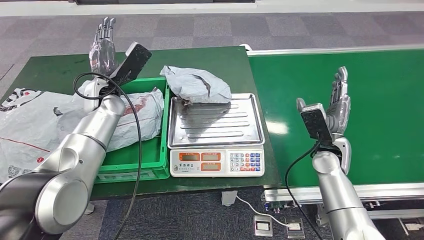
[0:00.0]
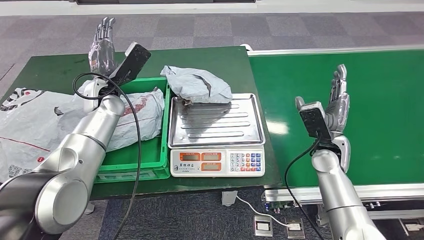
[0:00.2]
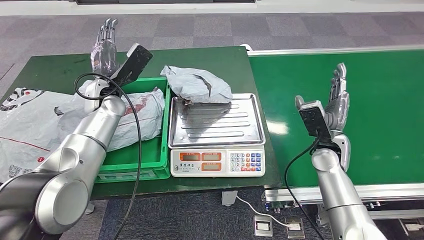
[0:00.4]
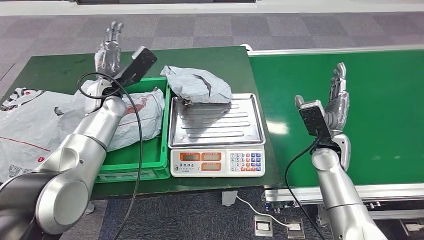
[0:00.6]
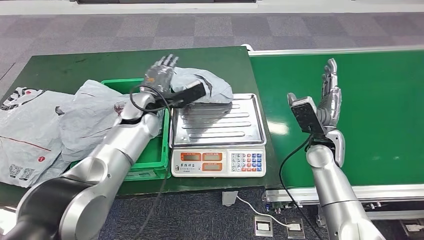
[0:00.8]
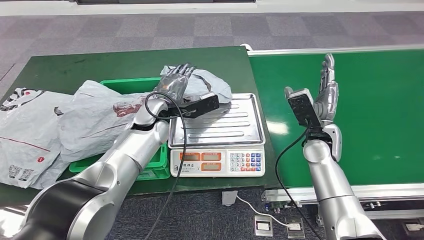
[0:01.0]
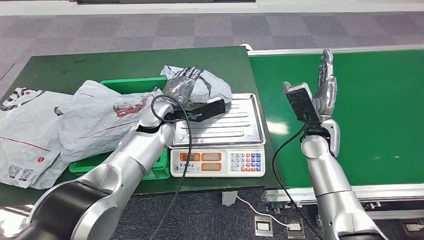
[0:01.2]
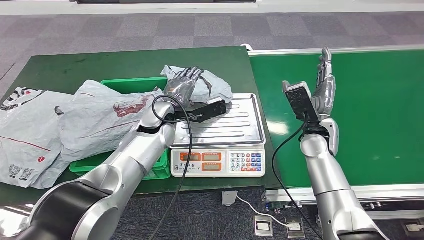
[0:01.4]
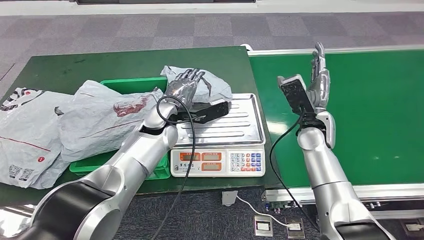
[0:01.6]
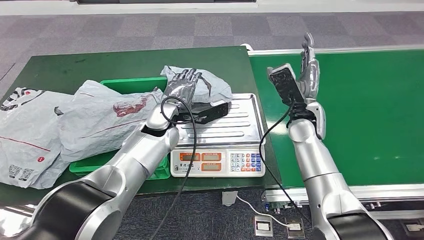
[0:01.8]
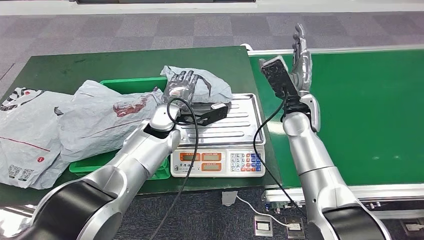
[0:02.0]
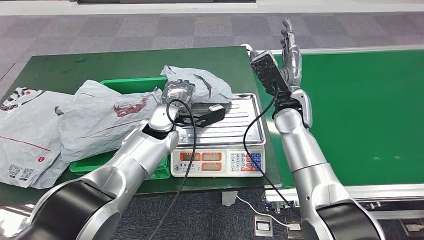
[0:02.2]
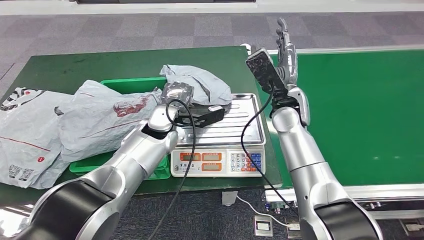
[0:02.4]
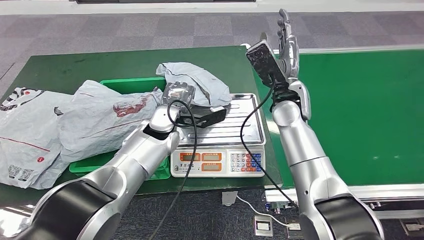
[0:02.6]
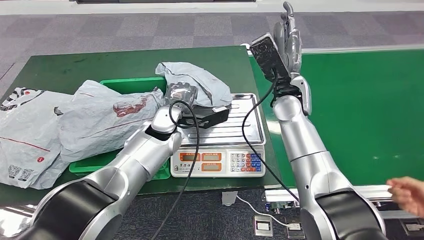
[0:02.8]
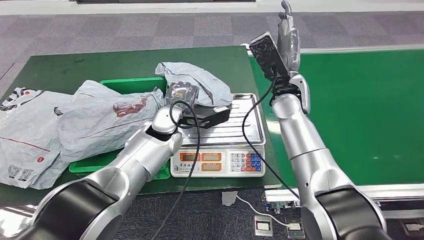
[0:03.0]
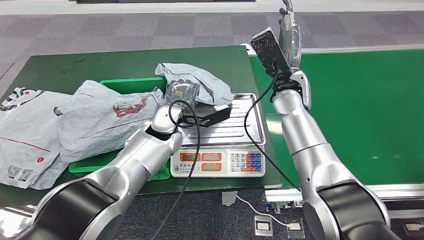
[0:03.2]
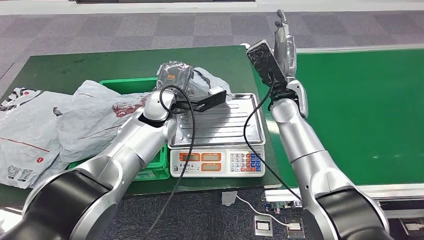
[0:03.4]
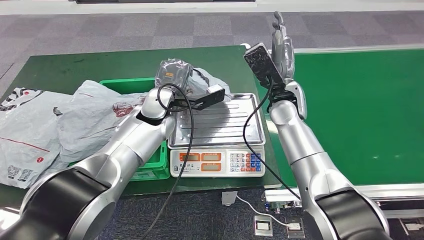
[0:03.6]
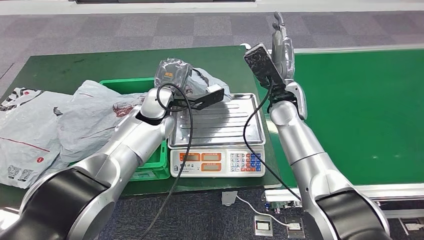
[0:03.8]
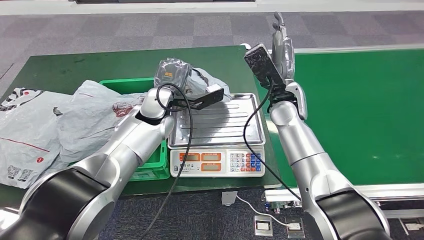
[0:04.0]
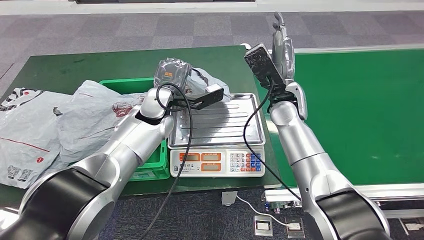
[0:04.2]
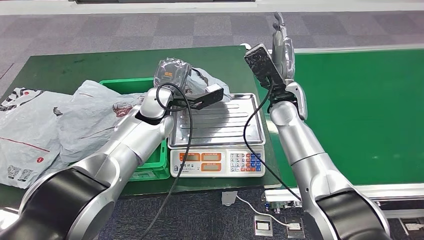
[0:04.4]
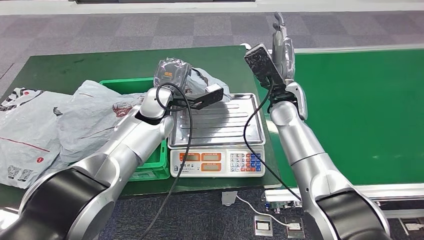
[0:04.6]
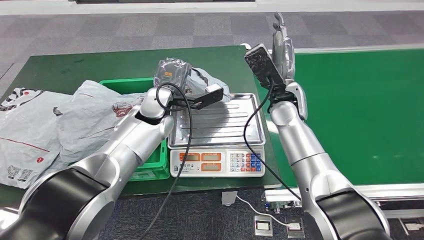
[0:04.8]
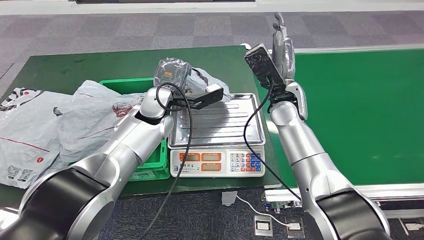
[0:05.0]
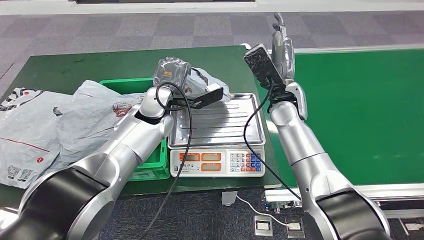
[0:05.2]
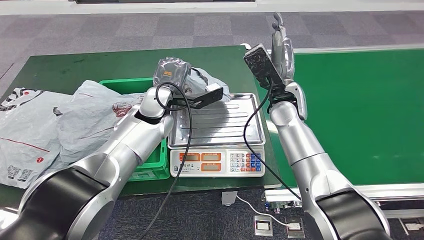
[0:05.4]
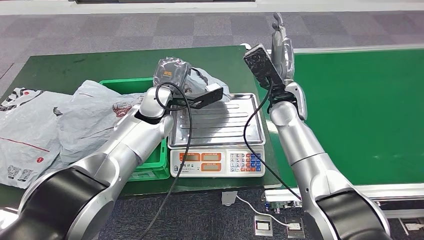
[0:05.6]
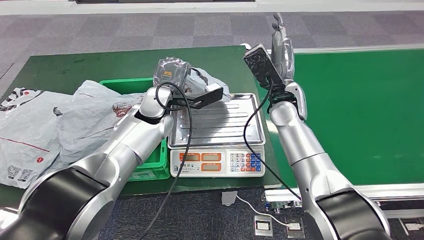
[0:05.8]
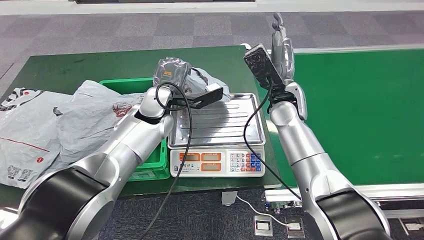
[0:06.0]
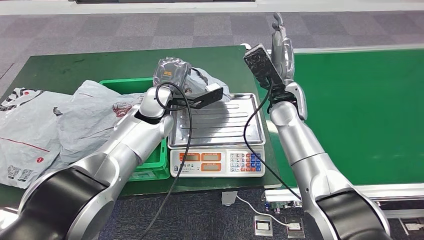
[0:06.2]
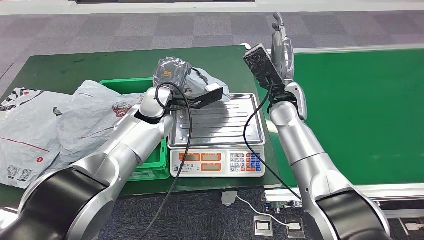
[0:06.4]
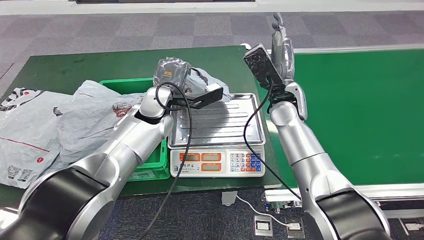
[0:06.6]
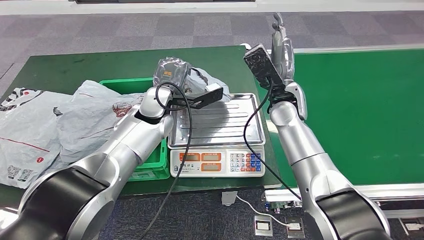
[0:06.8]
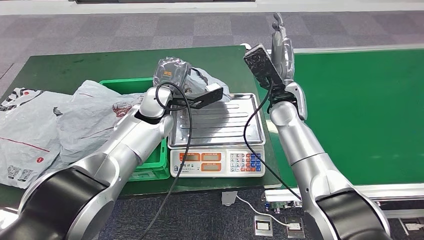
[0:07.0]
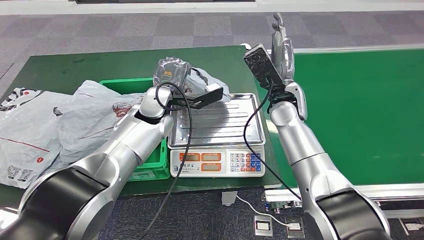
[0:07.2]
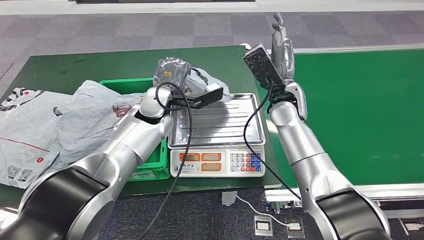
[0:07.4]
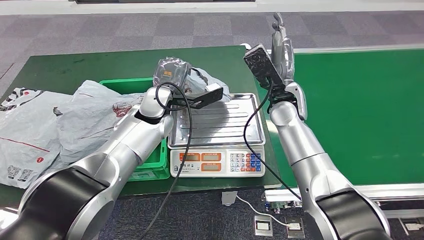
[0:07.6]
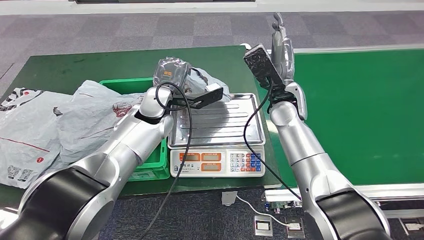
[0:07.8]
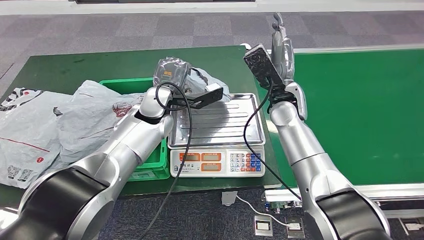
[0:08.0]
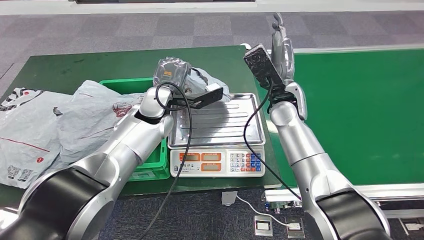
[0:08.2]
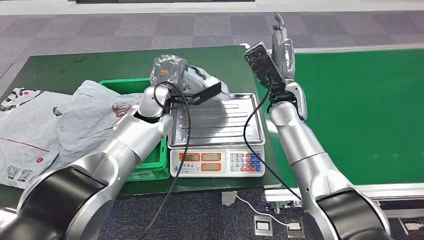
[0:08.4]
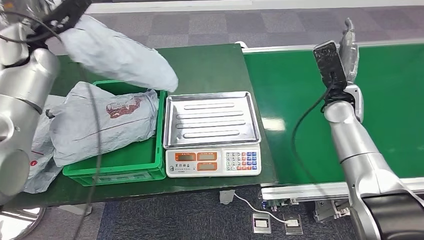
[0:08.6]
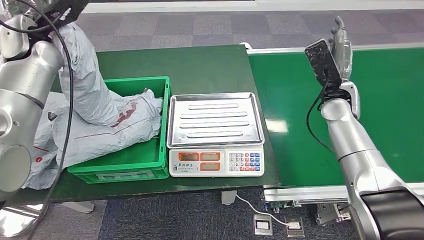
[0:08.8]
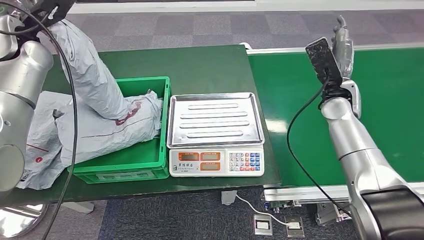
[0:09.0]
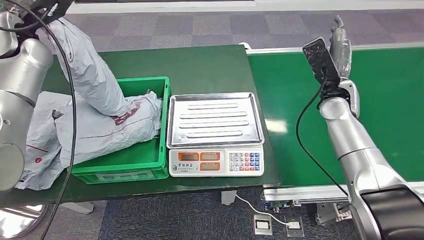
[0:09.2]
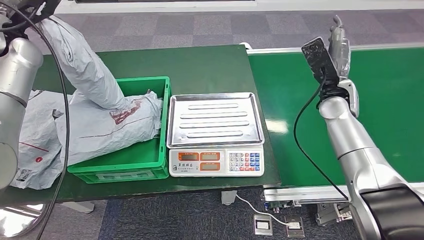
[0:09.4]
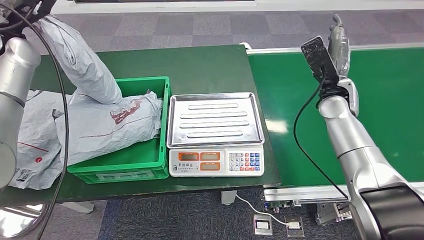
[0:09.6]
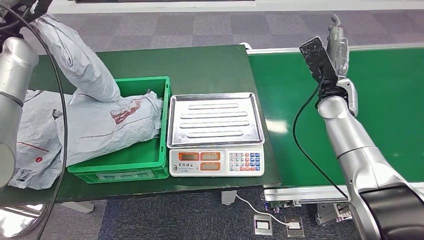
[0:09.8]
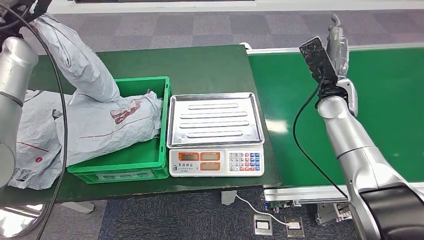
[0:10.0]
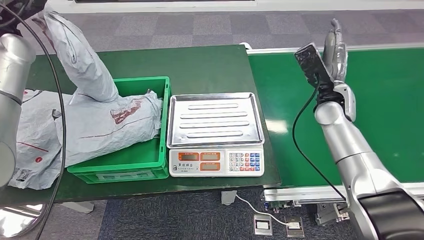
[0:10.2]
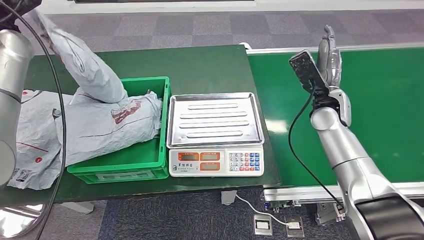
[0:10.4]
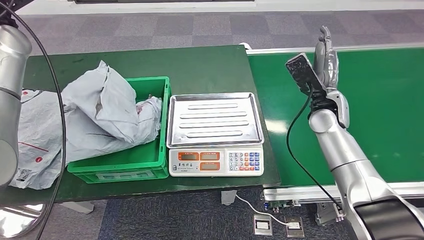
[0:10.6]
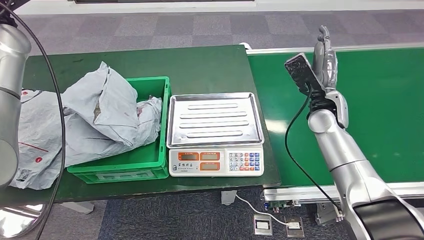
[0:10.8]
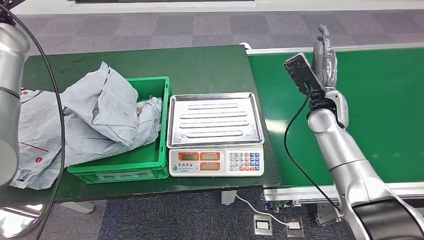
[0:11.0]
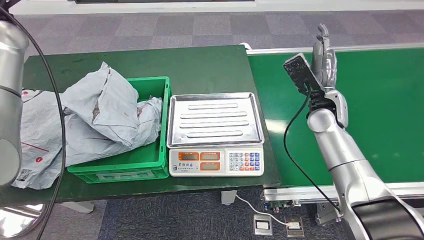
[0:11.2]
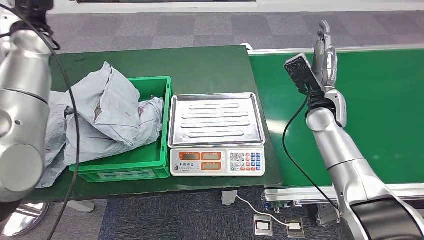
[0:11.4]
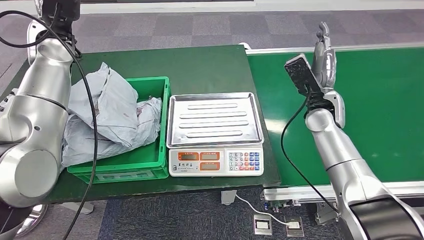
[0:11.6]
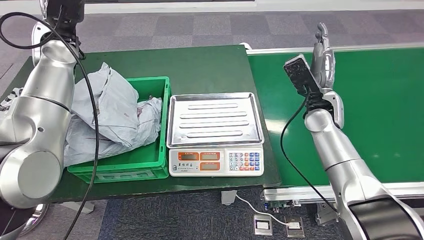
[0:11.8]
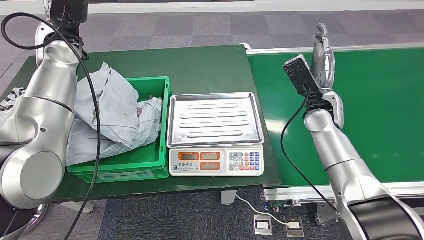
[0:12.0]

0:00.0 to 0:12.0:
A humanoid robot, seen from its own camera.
Step, 0:00.0 to 0:12.0: Place the parcel into the delivery box.
0:04.4 to 0:07.6: Neither hand changes place.
